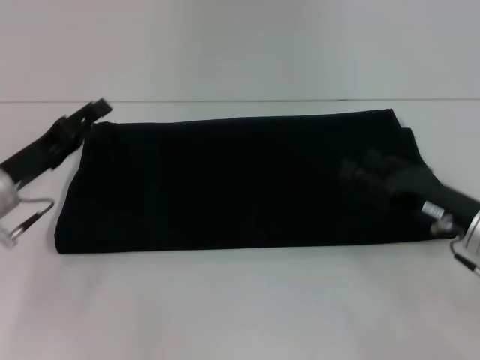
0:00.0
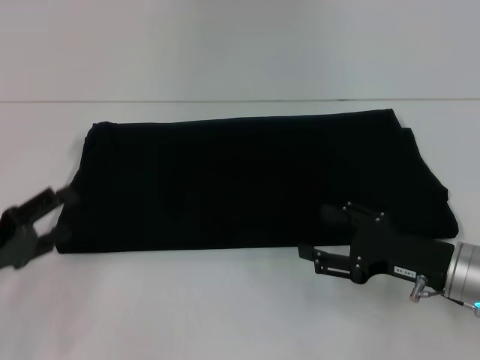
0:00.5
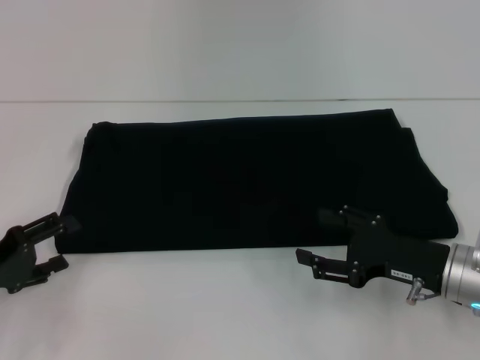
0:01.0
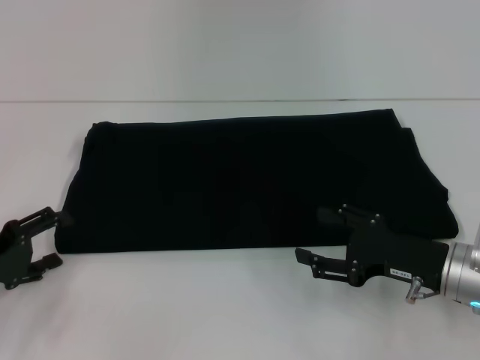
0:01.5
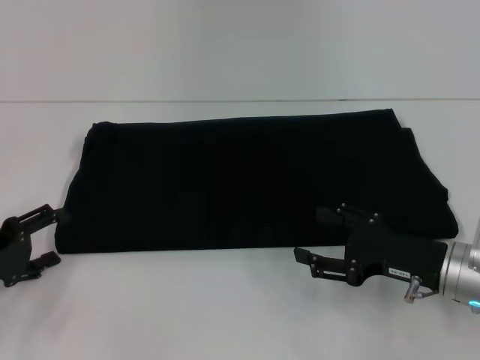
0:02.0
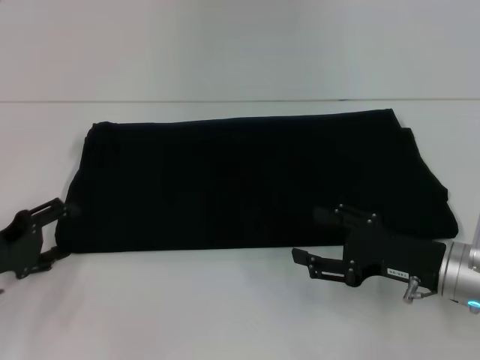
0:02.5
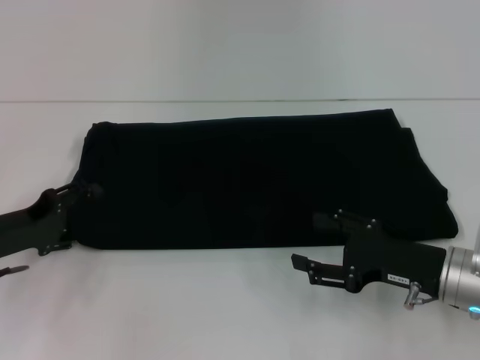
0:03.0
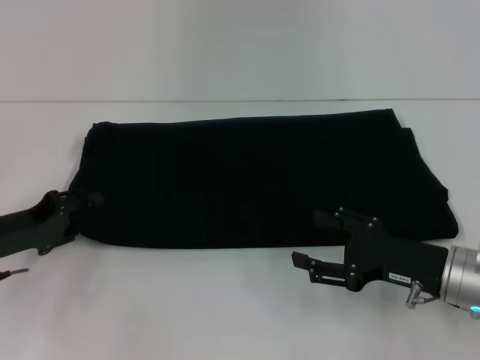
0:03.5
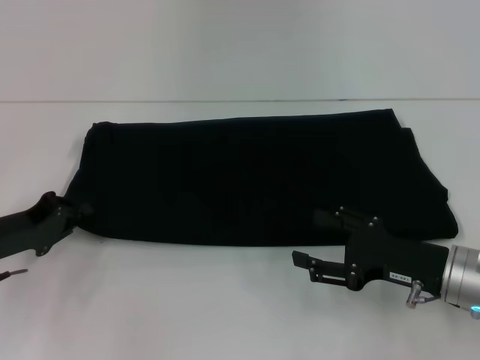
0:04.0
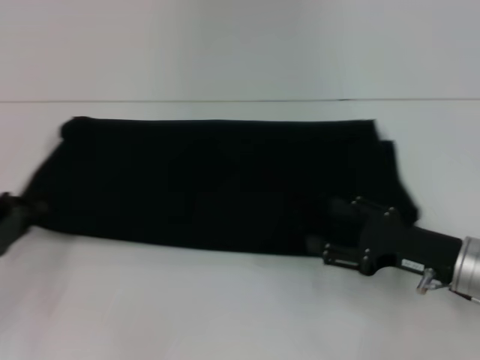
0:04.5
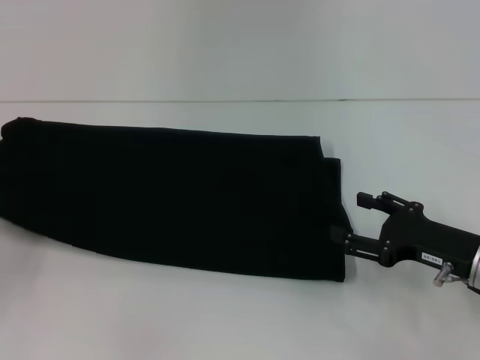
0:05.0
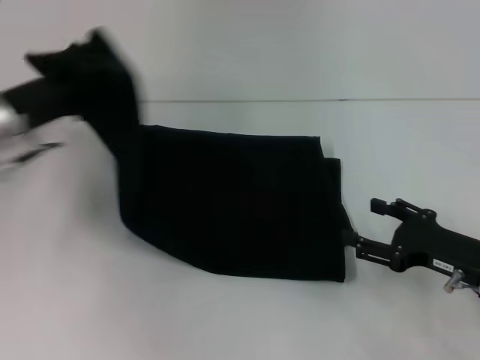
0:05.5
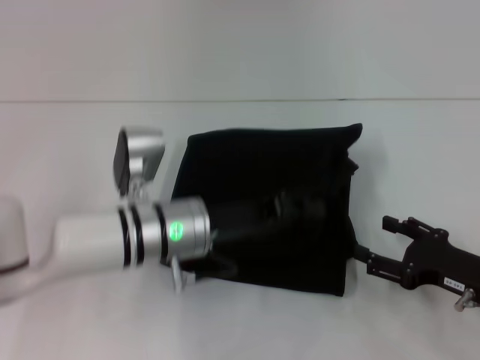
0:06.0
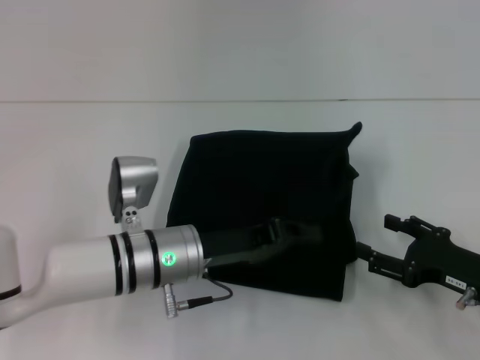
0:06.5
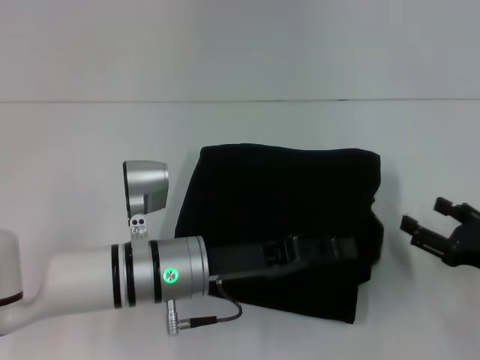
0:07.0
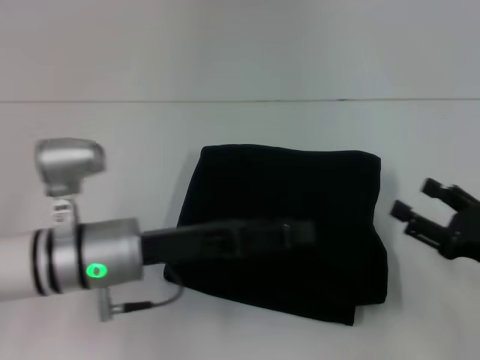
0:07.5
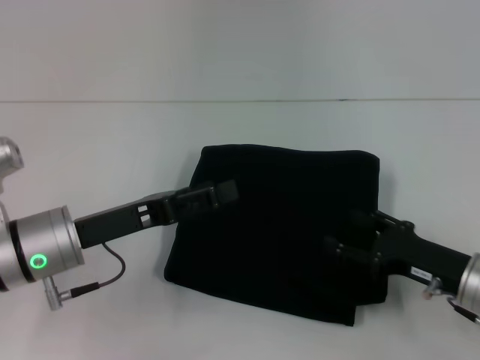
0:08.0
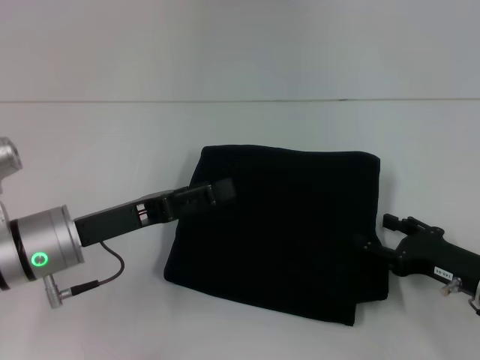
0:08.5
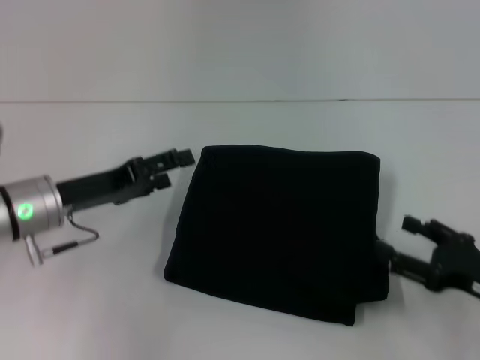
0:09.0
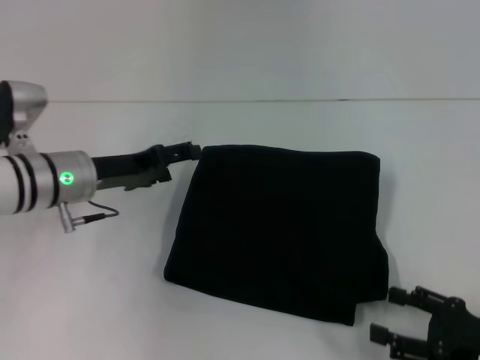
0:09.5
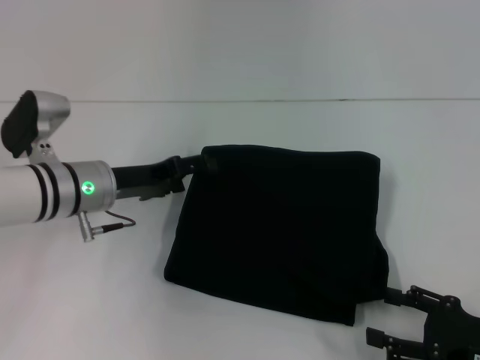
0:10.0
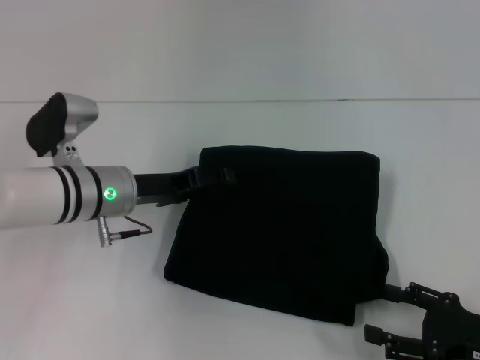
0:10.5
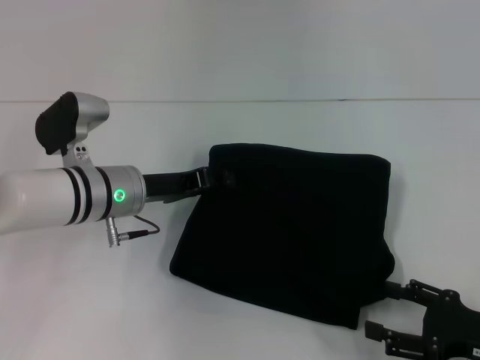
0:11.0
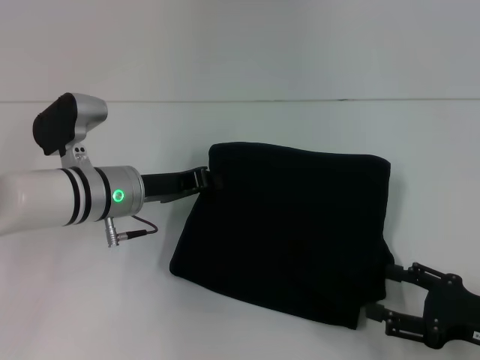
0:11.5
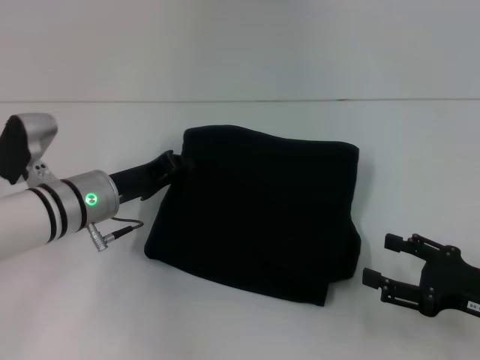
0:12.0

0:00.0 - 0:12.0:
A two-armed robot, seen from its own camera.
Step, 0:00.0 - 0:06.5: Fold the clothes with your left hand.
0:00.0 - 0:02.0: The left gripper shifts some 10 cm backward and to the left.
0:02.0 - 0:04.0: The left gripper closes its fingers.
0:04.0 - 0:06.0: The left gripper goes roughly 20 cm to the right; the right gripper moves to the right, roughly 5 cm.
0:06.0 - 0:08.0: The left gripper heads to the left, covering approximately 10 cm, and opens its fingers.
0:08.0 - 0:10.0: The left gripper shifts approximately 10 cm forward, while the right gripper is displaced backward and to the right by roughly 10 cm.
0:10.0 - 0:12.0: The left gripper closes its fingers.

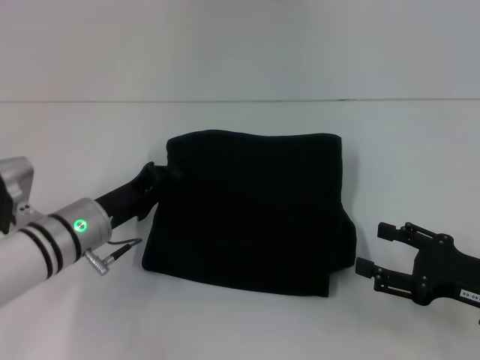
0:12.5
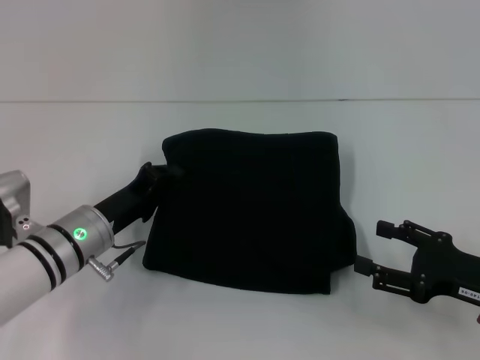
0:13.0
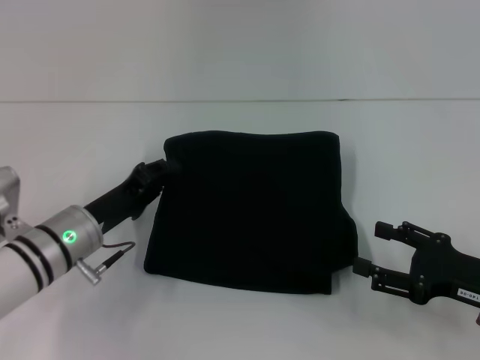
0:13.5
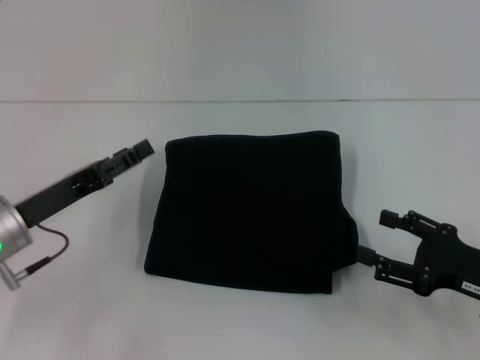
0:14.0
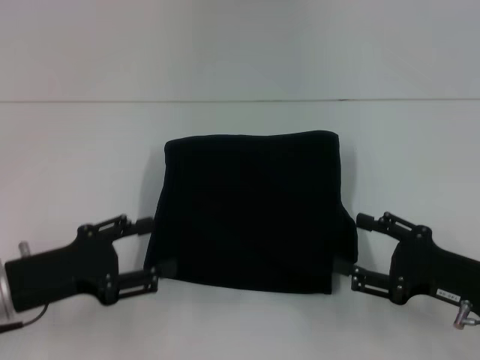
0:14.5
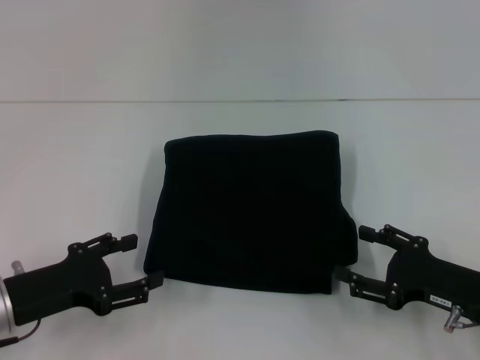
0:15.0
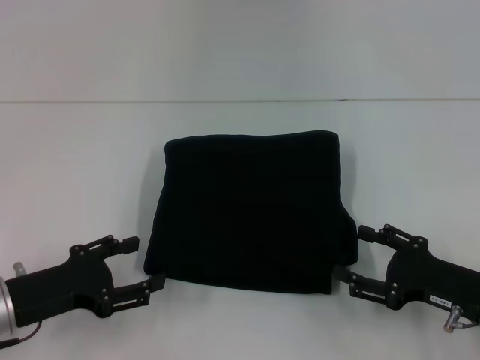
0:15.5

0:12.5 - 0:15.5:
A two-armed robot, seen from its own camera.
0:12.5 - 0:14.0: The left gripper moves to the left, about 5 cm, and opens its fingers.
0:14.0 - 0:15.5: The left gripper is displaced backward by approximately 5 cm.
